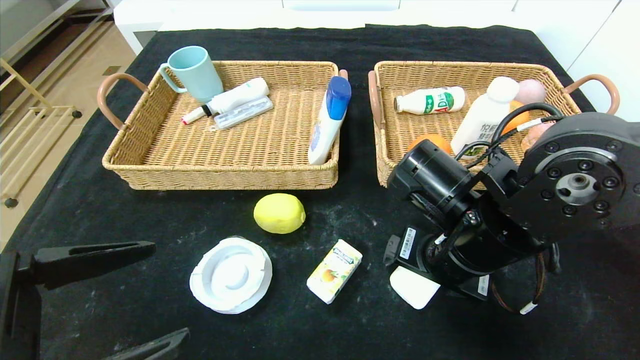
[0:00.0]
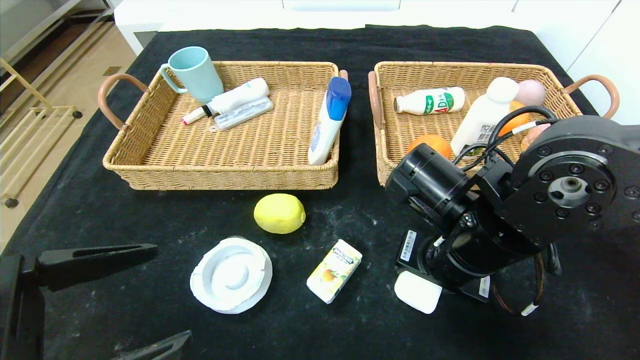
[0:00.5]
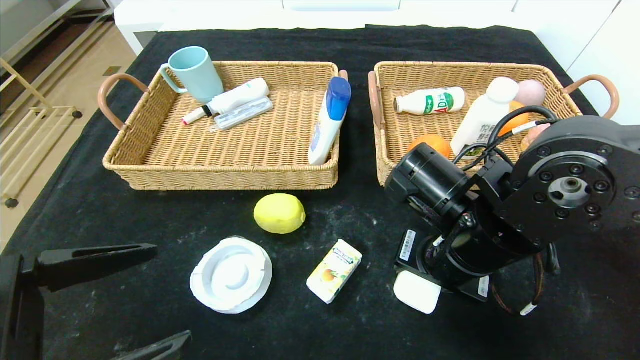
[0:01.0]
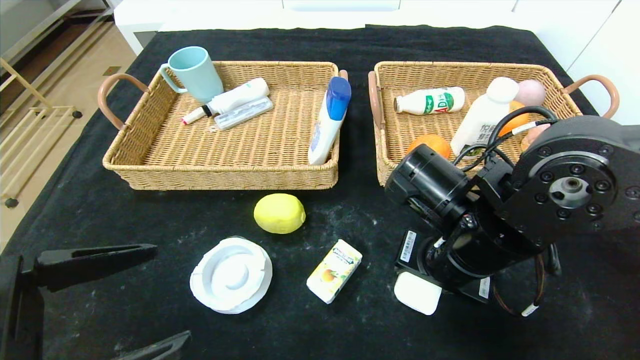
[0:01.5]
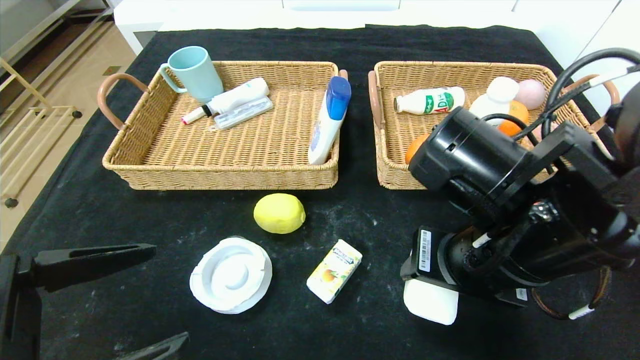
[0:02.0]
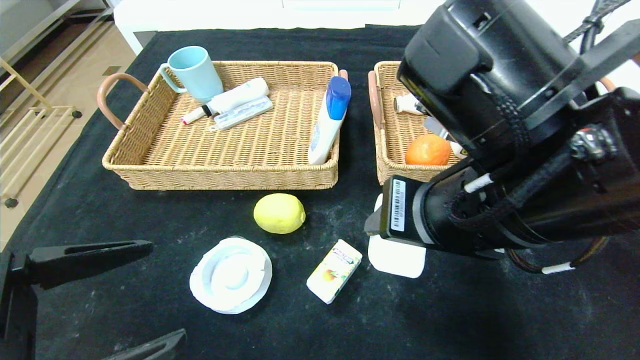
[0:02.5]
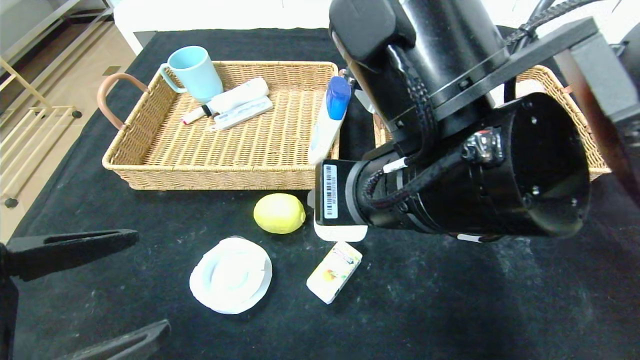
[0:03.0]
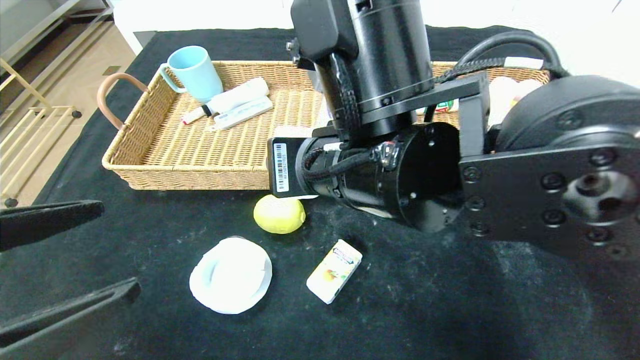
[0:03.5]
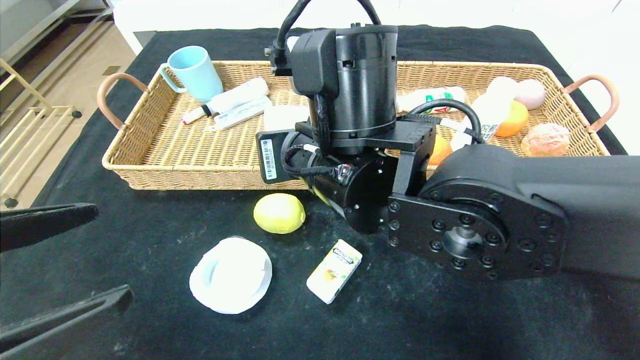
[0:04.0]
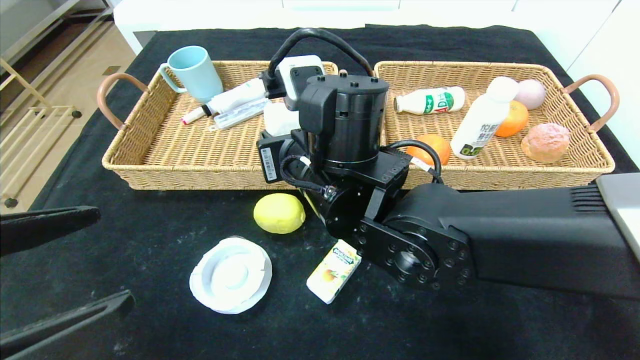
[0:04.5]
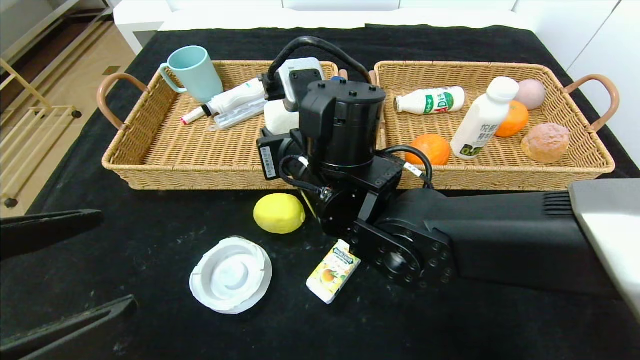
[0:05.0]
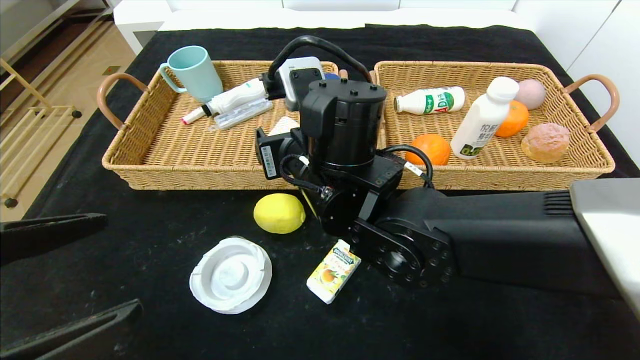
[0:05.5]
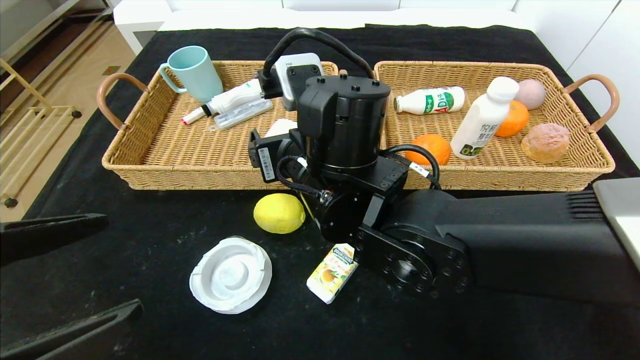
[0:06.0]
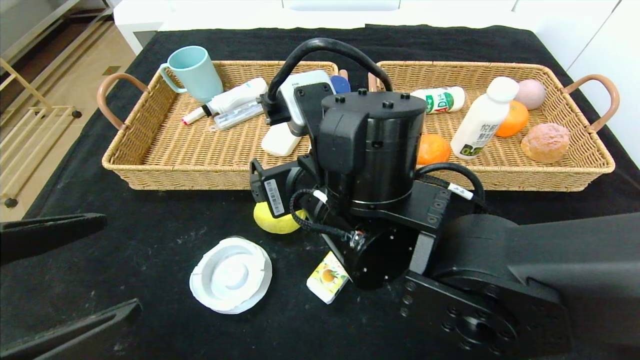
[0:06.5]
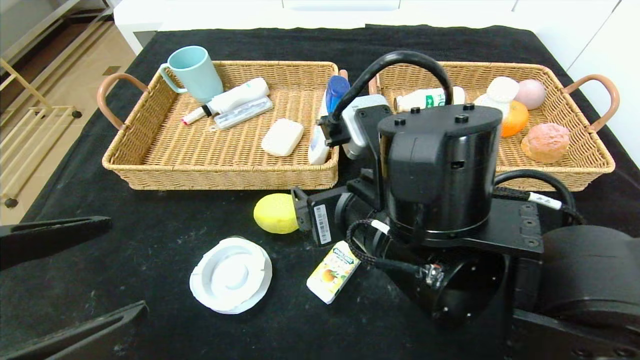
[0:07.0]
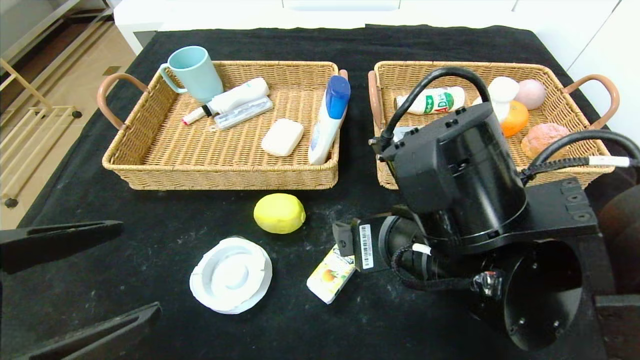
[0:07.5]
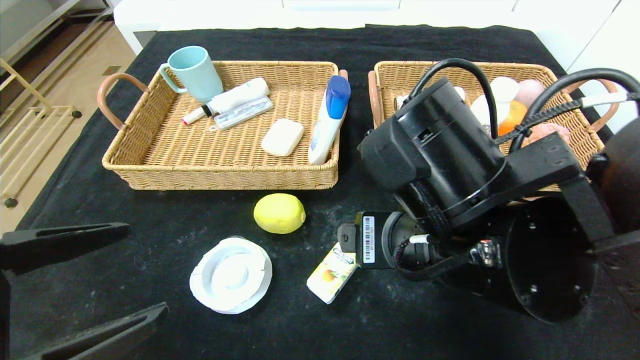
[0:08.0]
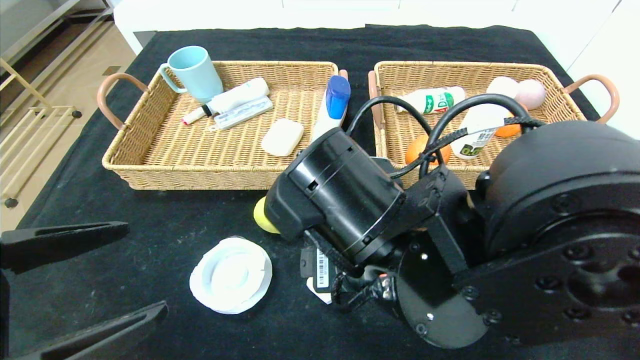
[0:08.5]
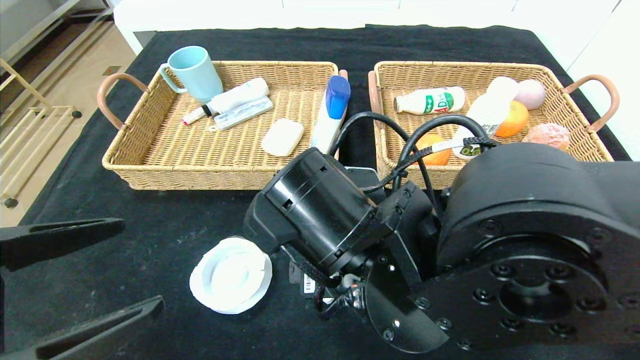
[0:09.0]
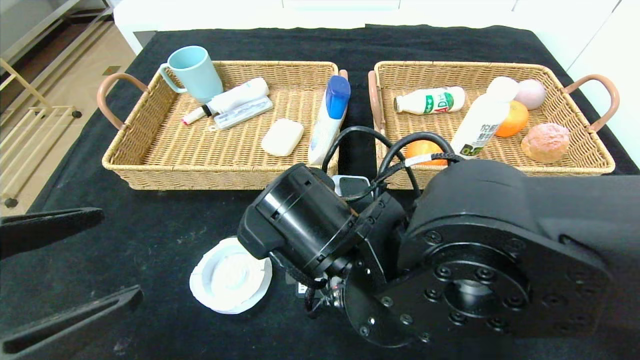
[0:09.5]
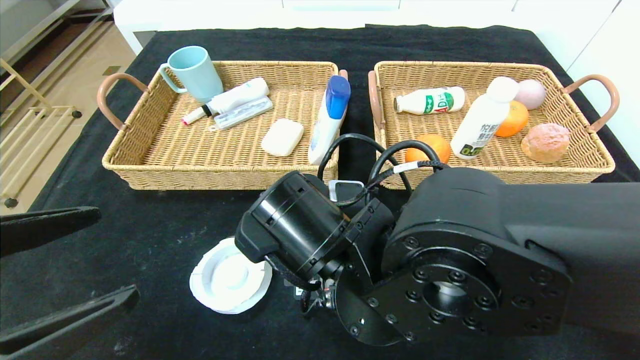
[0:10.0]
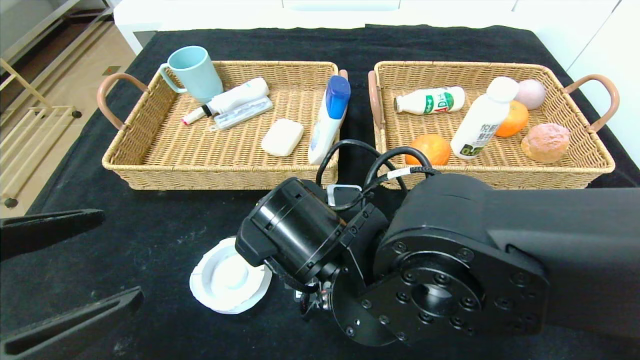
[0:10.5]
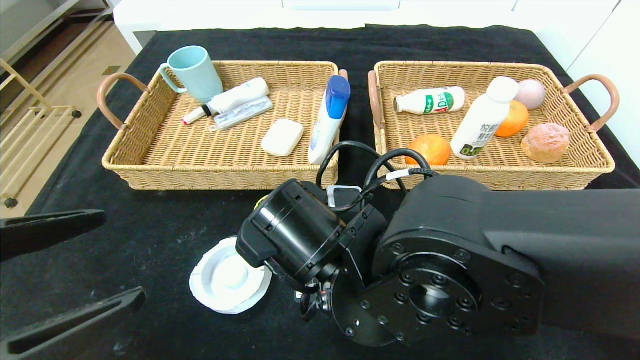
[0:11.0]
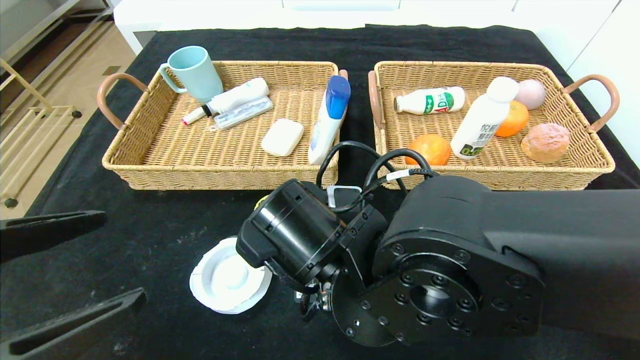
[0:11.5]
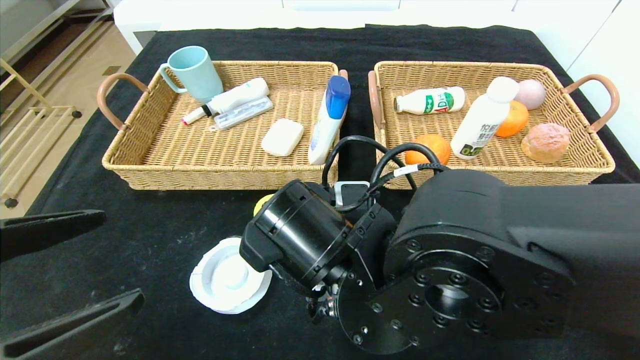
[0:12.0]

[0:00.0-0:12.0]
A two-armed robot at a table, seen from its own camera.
0:00.0 to 0:02.0: The right gripper moves about 5 cm, and closes up.
0:02.0 to 0:04.0: The right gripper heads to the left and forward, covering roughly 15 cm.
0:04.0 to 0:06.0: The right gripper opens up.
0:06.0 to 0:08.0: The right gripper moves to the right and backward, some 10 cm.
0:08.0 to 0:10.0: The right gripper travels to the left and downward by about 10 cm.
0:10.0 to 0:12.0: The right gripper closes its fingers.

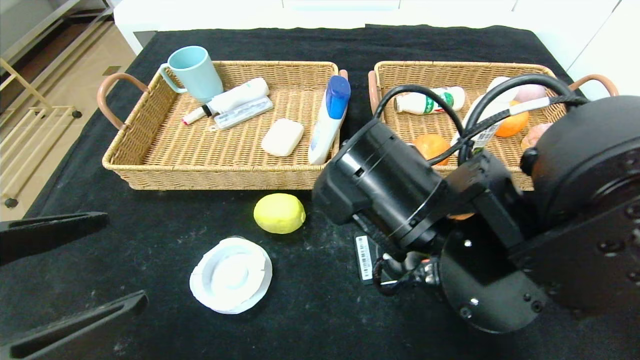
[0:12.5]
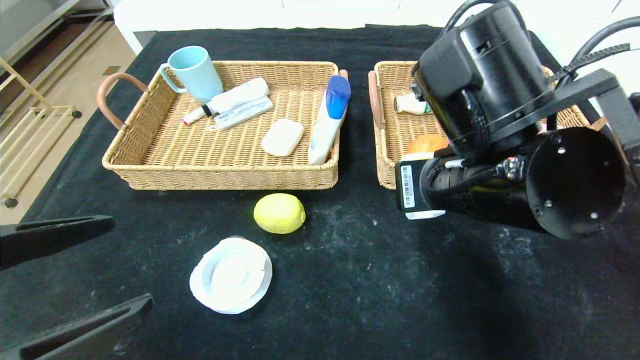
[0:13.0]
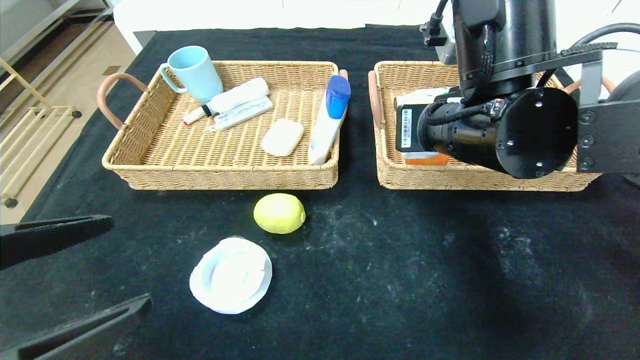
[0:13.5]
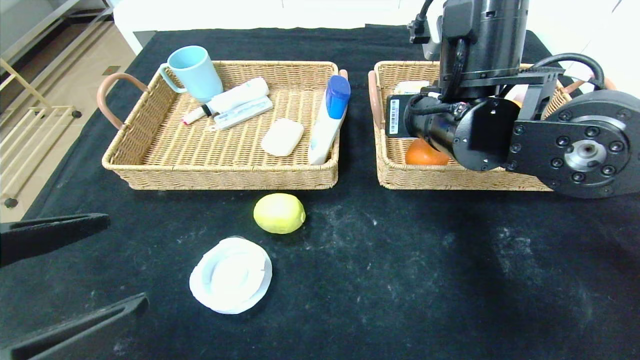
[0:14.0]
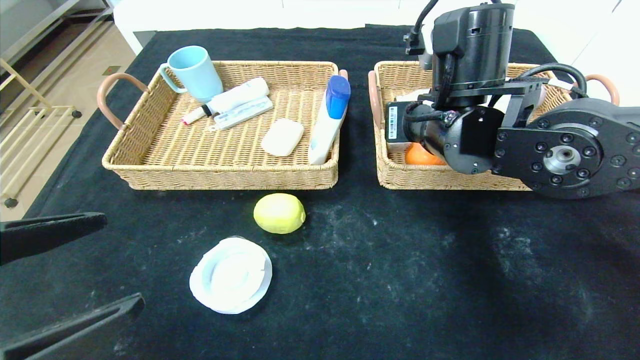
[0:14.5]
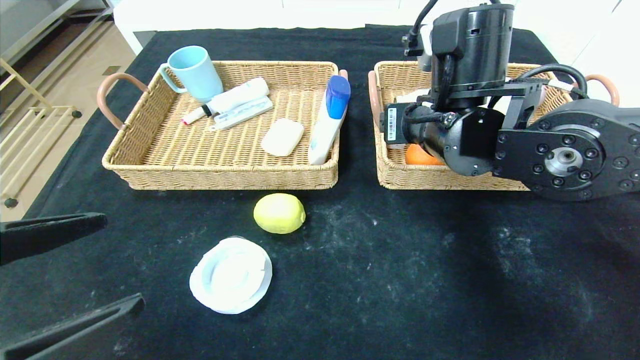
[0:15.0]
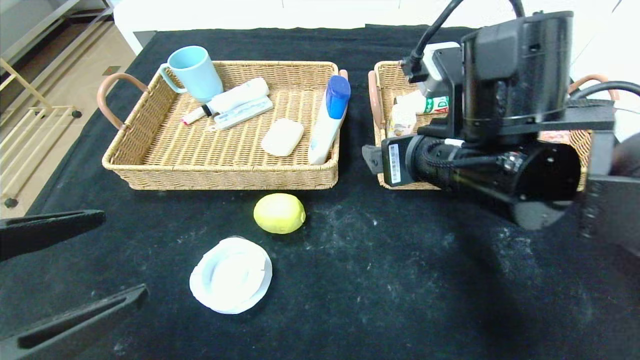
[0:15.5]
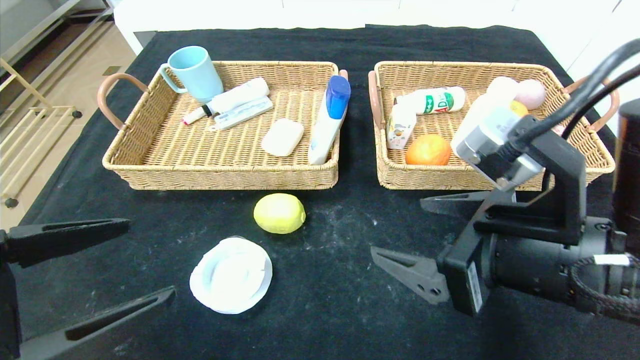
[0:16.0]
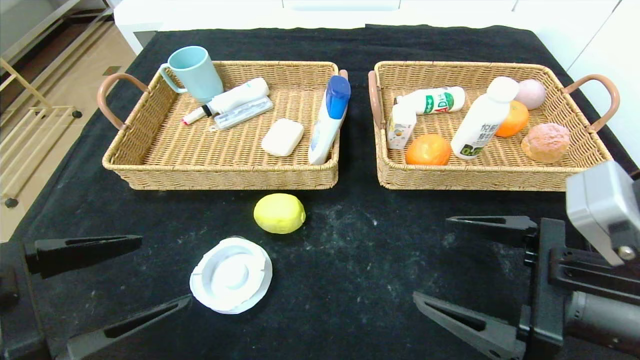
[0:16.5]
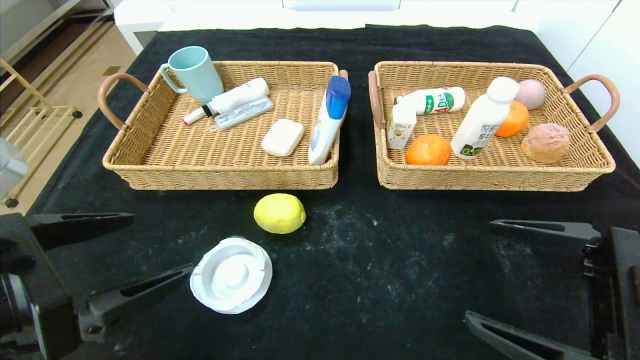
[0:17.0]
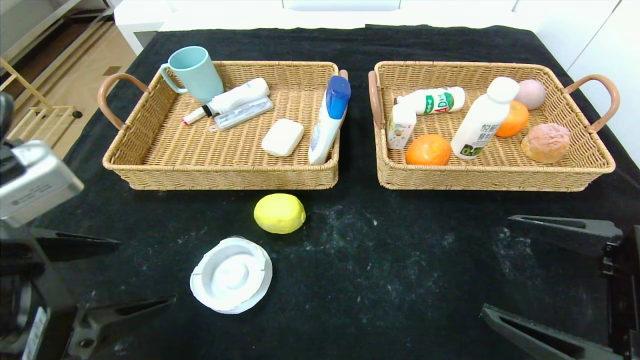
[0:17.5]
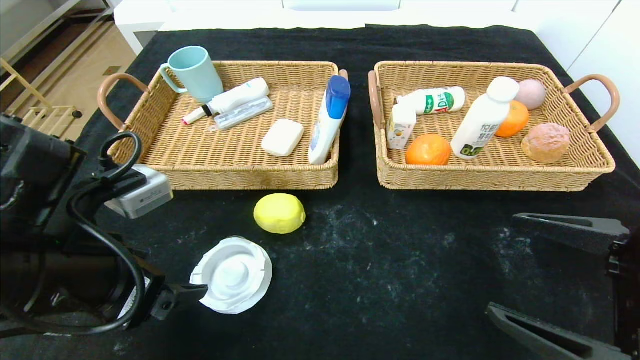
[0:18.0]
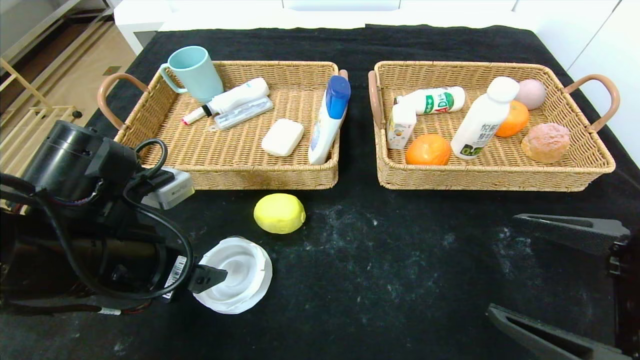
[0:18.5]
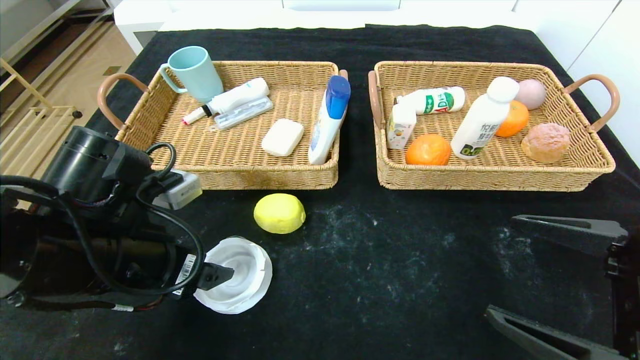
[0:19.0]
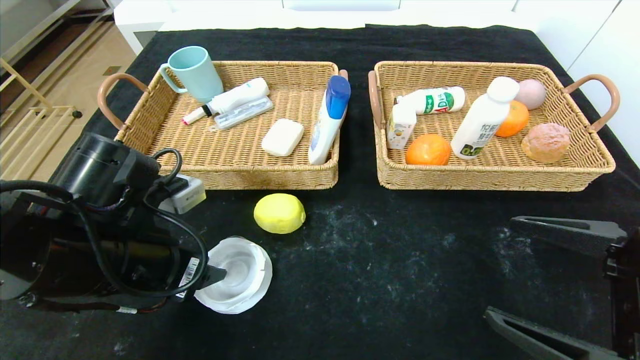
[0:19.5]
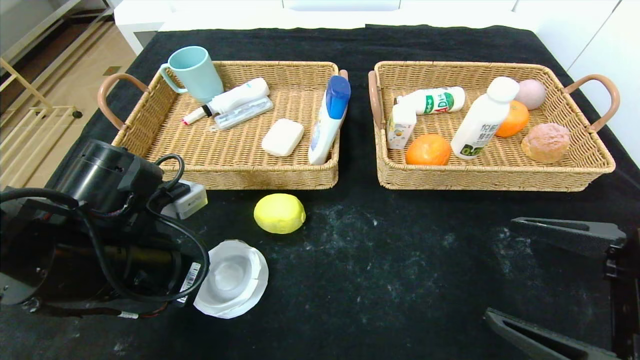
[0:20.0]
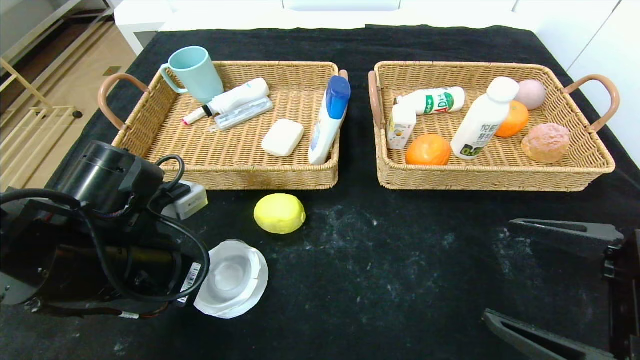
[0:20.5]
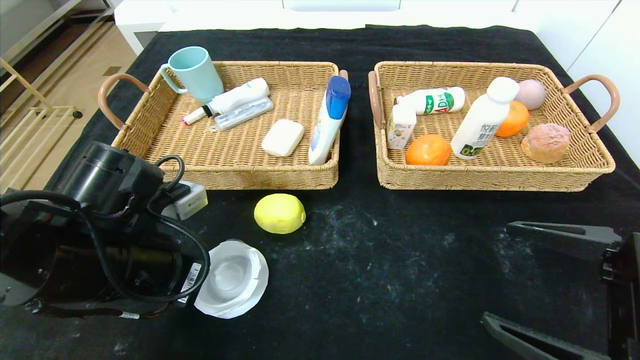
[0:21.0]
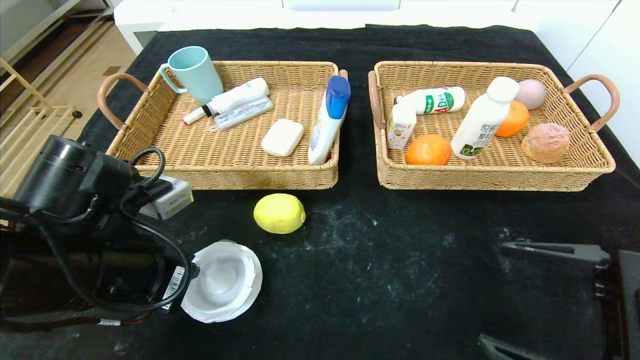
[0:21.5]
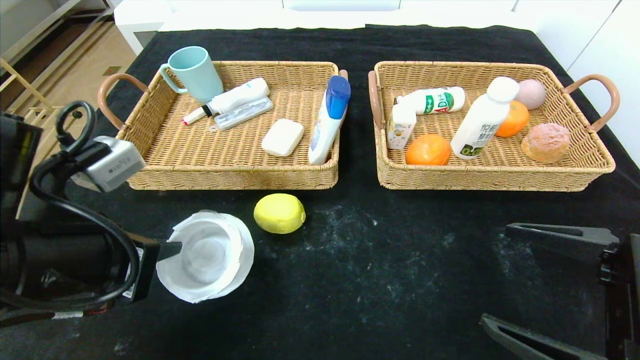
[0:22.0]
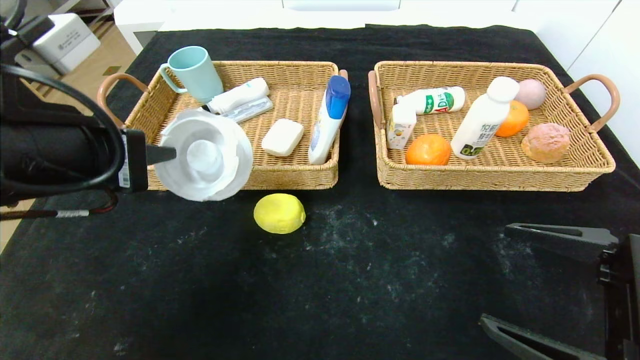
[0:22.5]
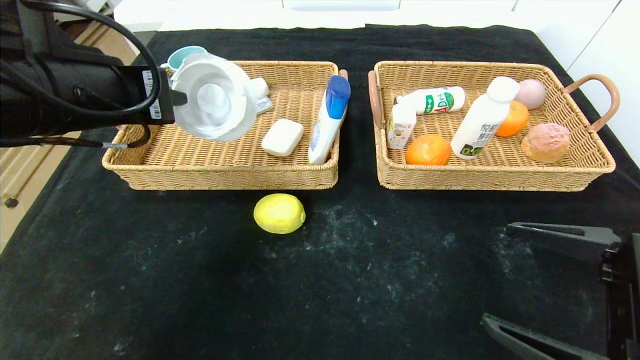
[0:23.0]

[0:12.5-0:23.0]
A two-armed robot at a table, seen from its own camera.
Step, 0:12.5 to 0:14.5: Grasp the square chewing gum and put it in the right basket.
0:12.5 to 0:14.5: The right gripper goes roughly 10 cm forward, and opens up.
0:14.5 to 0:16.5: The right gripper is displaced backward, to the right and downward by some 20 cm, and opens up.
0:16.5 to 0:19.0: The left gripper travels forward by about 10 cm.
0:19.0 to 0:21.0: The left gripper closes its fingers.
0:21.0 to 0:23.0: The left gripper travels upward by roughly 15 cm.
